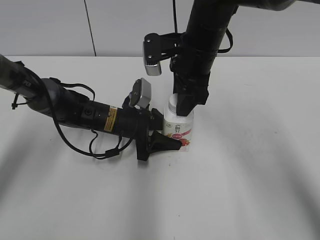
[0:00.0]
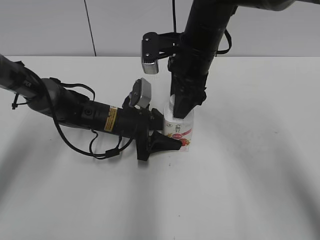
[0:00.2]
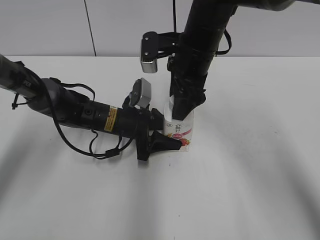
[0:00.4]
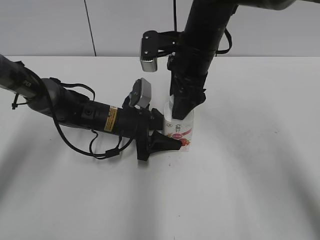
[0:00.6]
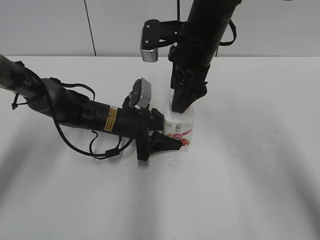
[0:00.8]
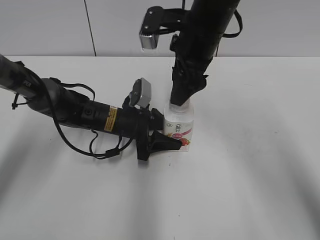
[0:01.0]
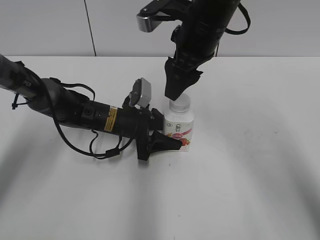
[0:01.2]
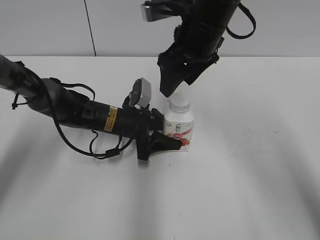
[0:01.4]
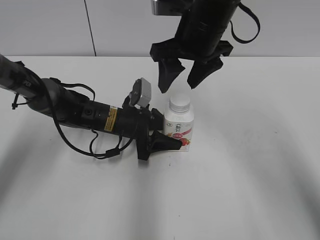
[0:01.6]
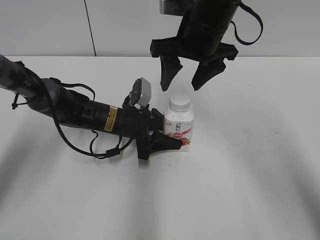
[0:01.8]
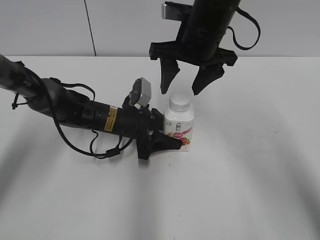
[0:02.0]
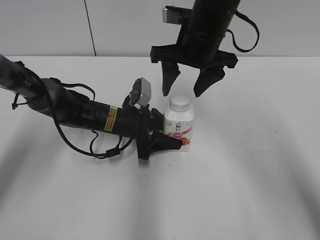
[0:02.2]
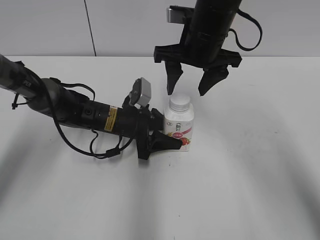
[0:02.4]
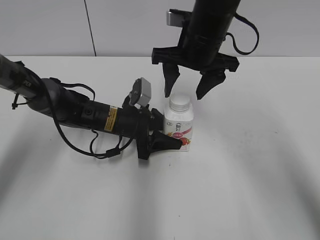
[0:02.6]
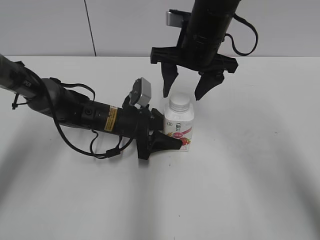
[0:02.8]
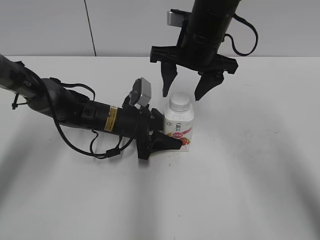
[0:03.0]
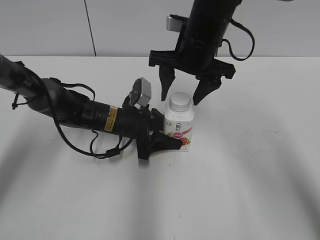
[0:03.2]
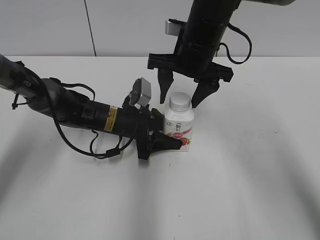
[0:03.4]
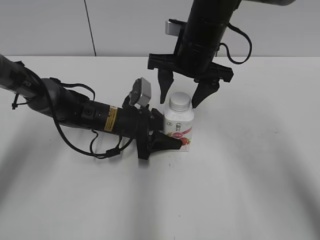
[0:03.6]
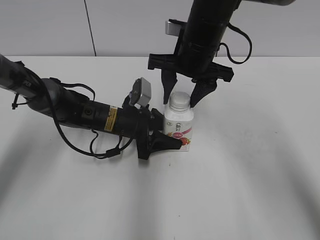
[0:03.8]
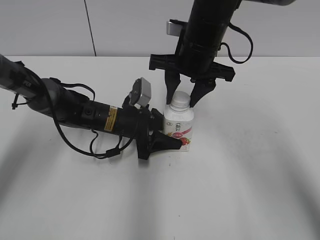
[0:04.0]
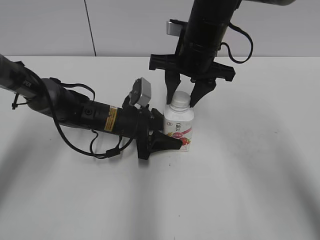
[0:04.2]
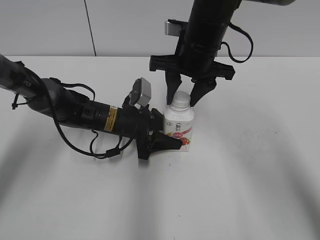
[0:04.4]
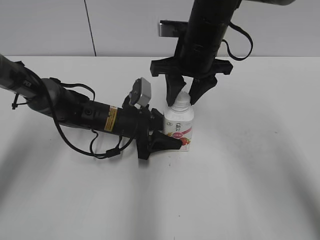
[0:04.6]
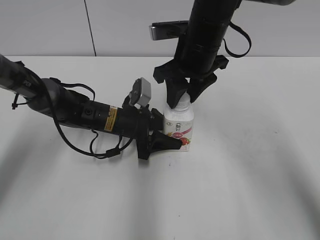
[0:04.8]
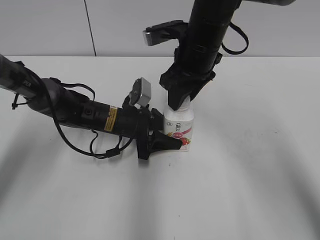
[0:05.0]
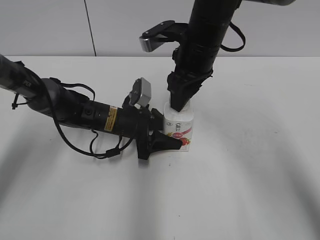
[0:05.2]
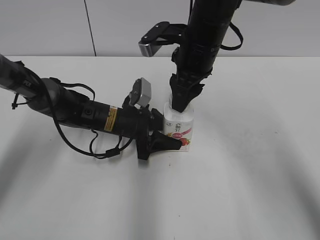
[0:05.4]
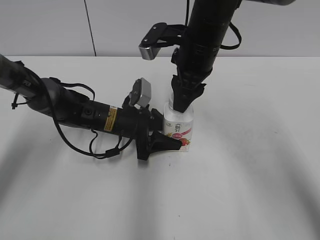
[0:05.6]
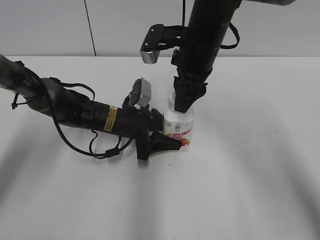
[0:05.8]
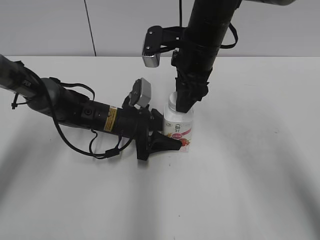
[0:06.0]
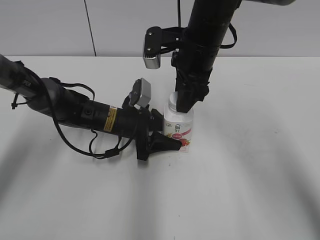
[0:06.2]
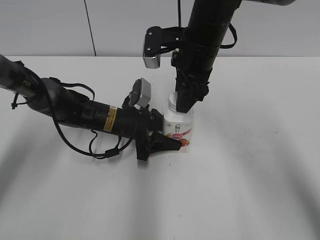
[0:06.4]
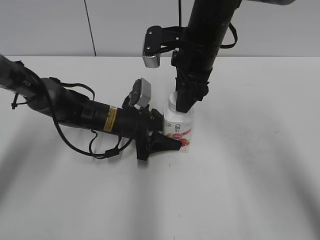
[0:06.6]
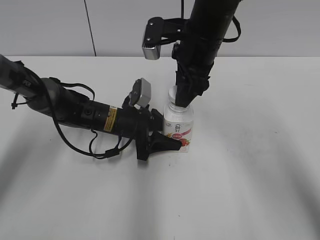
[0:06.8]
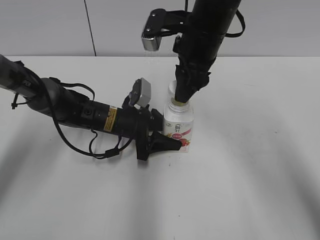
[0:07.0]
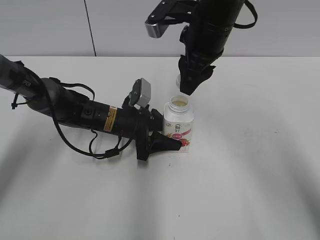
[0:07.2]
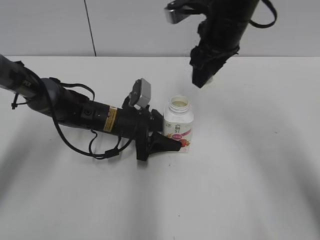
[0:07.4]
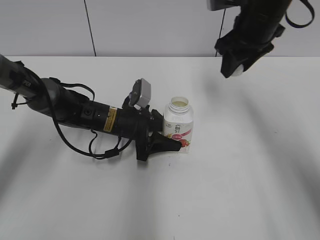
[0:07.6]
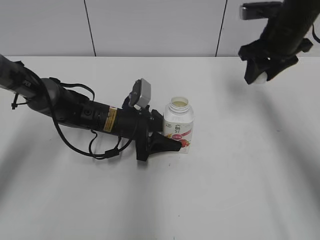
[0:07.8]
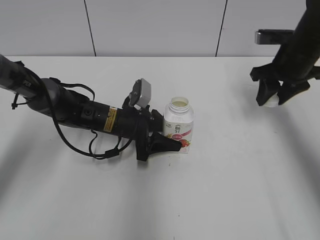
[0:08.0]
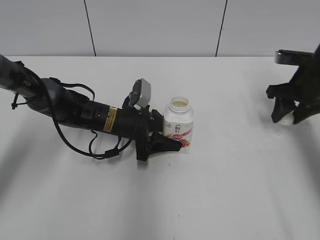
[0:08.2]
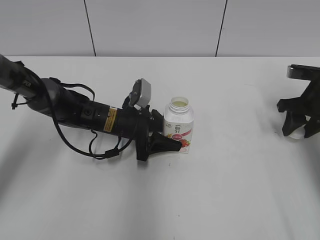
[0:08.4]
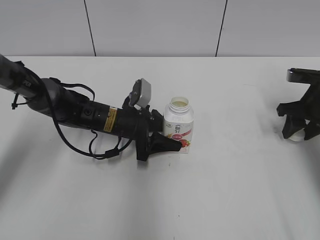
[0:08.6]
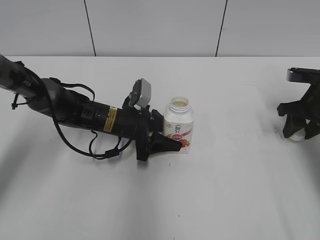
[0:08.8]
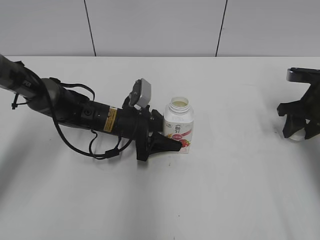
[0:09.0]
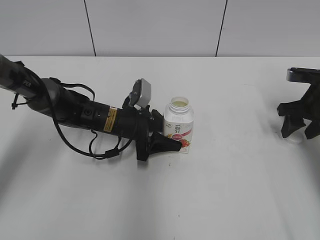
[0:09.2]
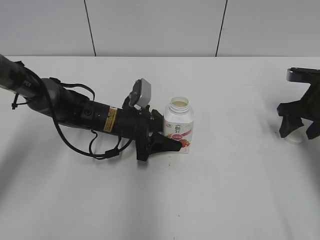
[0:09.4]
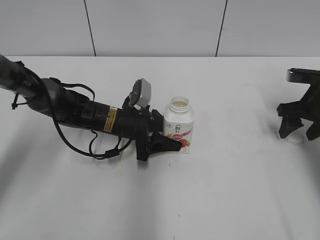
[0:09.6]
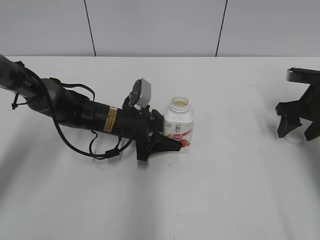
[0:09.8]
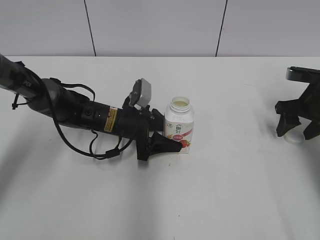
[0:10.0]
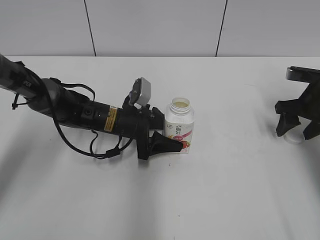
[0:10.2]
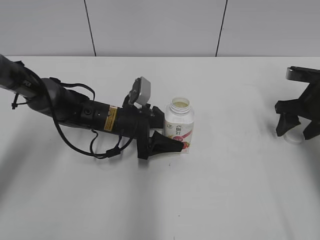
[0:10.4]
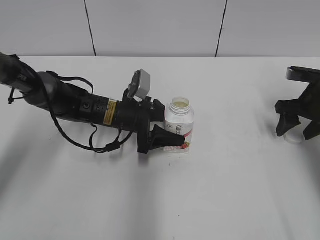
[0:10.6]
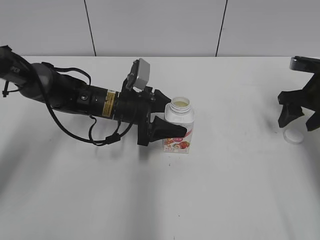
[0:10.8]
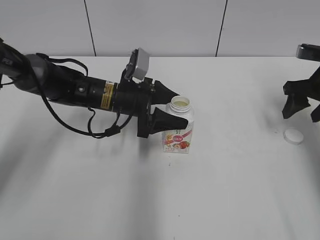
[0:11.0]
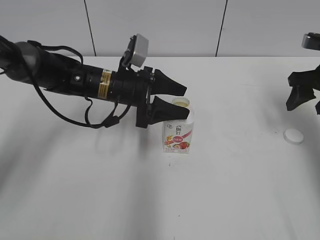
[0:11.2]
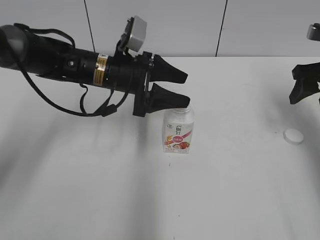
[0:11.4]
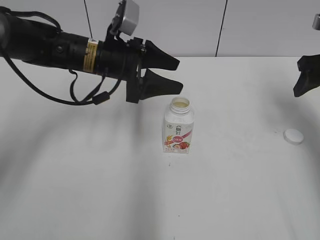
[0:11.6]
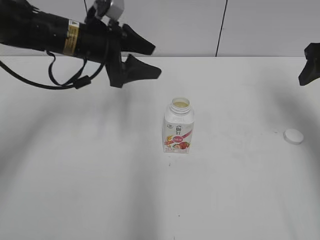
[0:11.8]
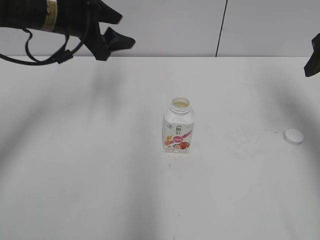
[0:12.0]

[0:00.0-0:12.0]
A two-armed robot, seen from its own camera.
Step, 7.2 to 9.4 s: Place the bottle cap on the right.
Step, 9.8 to 10.6 s: Place the Yili Changqing with the left hand.
0.0 to 1.6 s: The right gripper opens its fingers.
3.0 to 4.4 s: The right gripper closes.
6.0 to 7.6 s: The right gripper travels to the right by approximately 10 cm.
7.6 to 9.0 s: The right gripper is displaced to the right and downward by approximately 20 cm.
9.0 to 10.4 s: The left gripper opens; the right gripper opens up.
10.4 to 12.0 s: Both grippers move upward, about 20 cm.

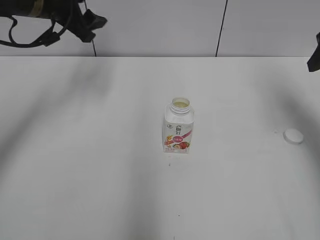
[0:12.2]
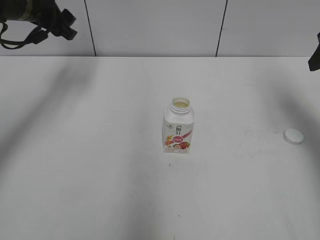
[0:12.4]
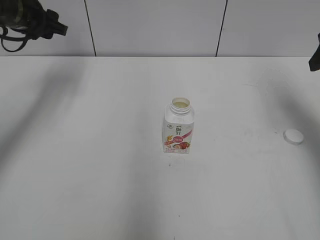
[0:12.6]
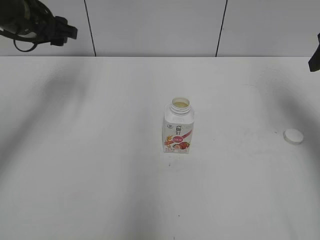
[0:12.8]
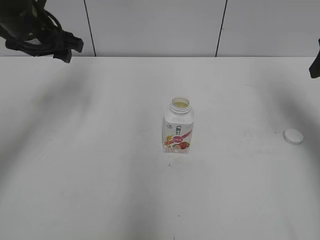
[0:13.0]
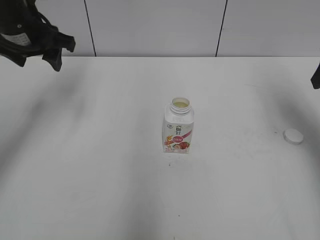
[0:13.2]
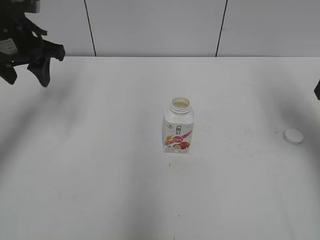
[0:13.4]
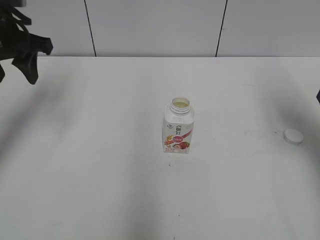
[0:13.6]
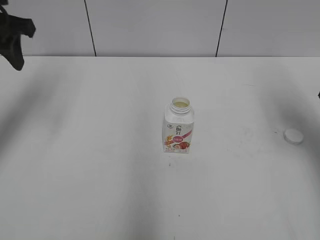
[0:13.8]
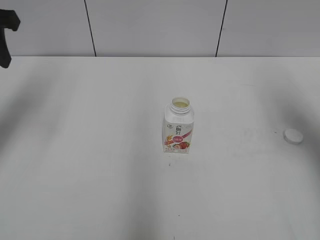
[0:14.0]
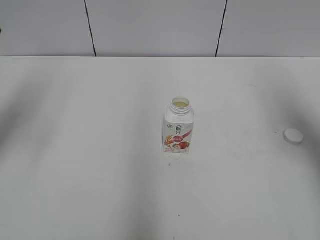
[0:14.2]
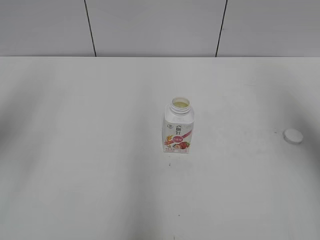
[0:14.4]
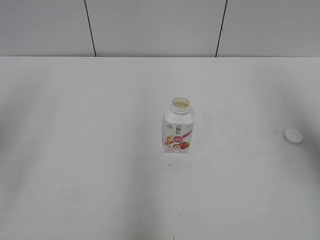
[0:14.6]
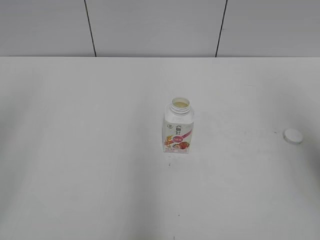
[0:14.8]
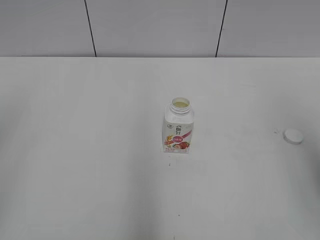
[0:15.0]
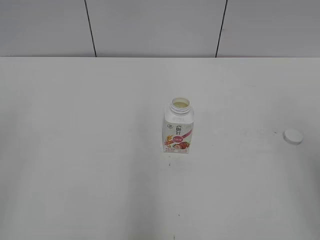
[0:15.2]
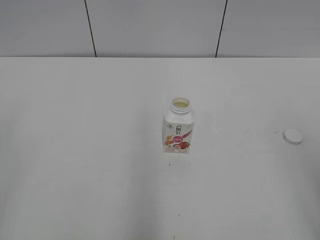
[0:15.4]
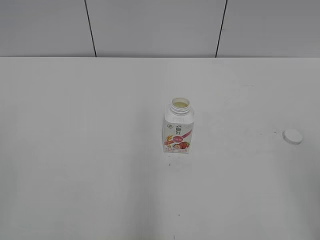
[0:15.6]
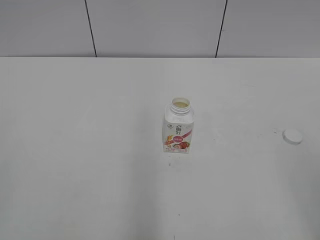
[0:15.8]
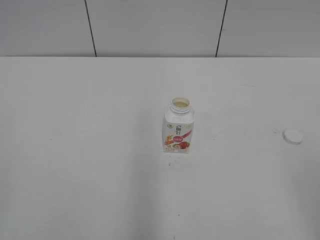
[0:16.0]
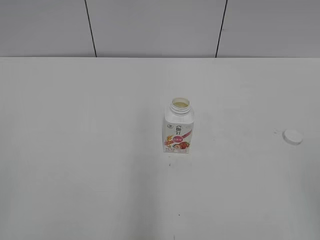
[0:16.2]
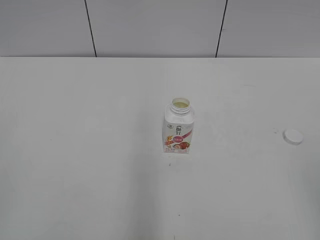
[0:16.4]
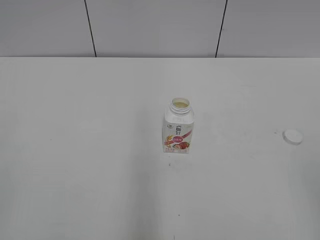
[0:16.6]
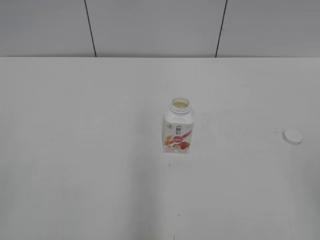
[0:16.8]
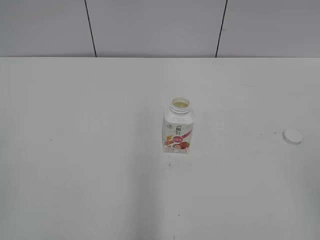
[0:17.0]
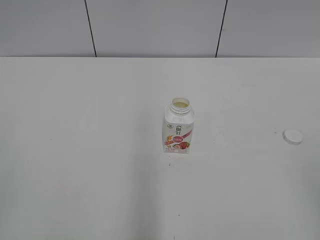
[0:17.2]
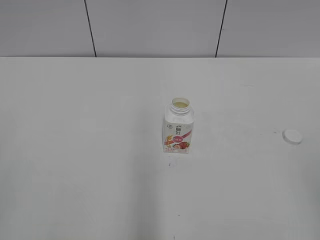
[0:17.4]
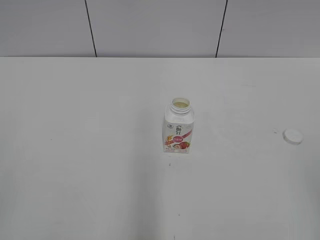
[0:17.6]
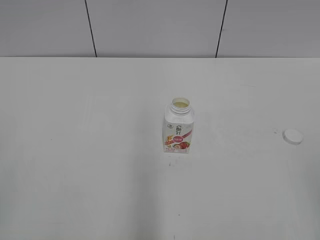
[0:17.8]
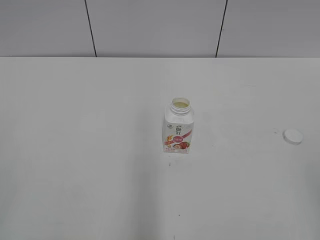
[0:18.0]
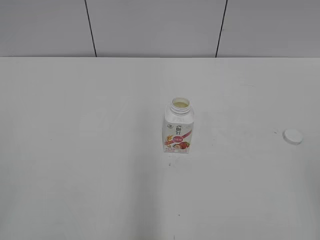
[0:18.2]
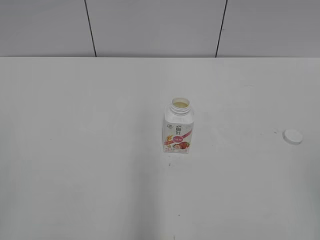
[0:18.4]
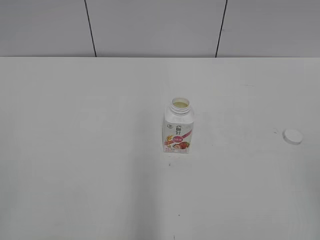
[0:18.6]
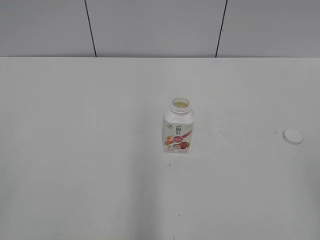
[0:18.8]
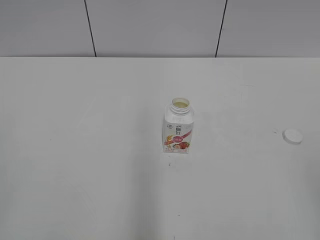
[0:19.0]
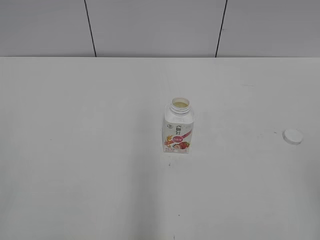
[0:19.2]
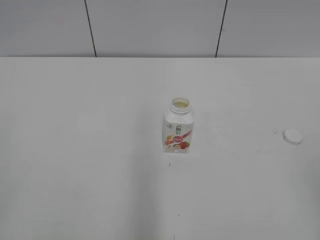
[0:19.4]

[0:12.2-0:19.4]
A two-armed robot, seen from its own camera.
12.2 to 13.6 s: The left gripper moves backward and to the left, about 10 cm.
13.6 to 15.0 s: The right gripper goes some 20 cm backward and upward. Meanwhile the left gripper moves backward, some 25 cm.
16.6 to 19.4 s: The two grippers keep their place.

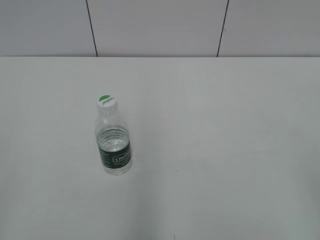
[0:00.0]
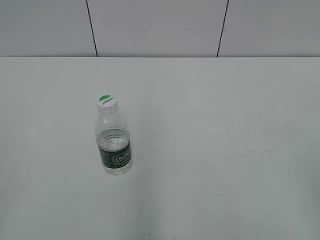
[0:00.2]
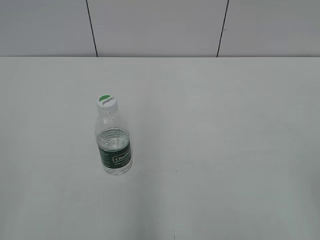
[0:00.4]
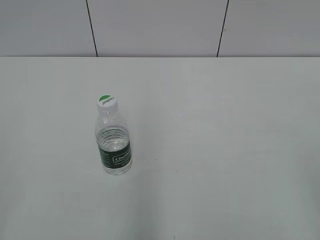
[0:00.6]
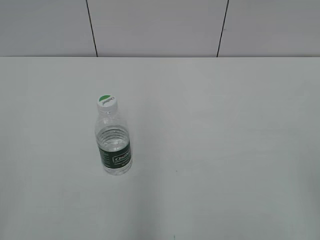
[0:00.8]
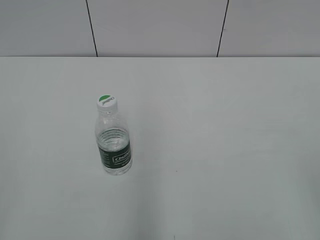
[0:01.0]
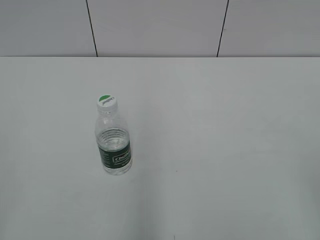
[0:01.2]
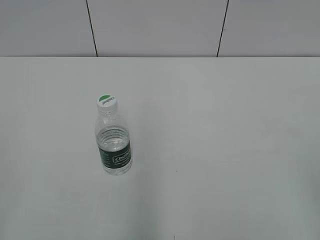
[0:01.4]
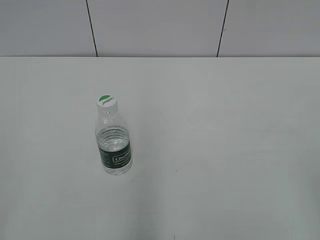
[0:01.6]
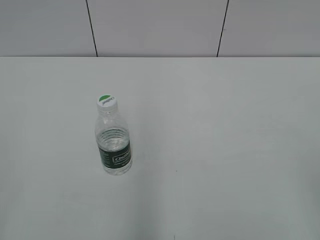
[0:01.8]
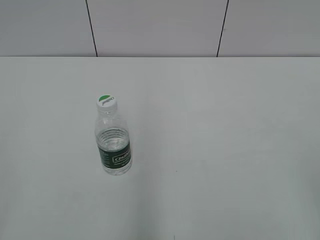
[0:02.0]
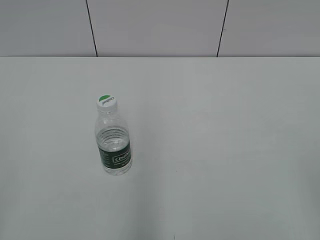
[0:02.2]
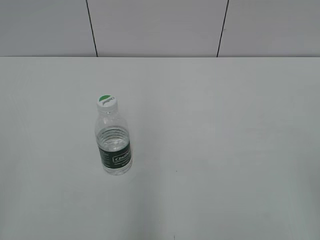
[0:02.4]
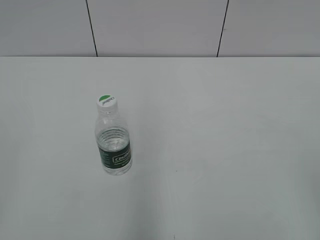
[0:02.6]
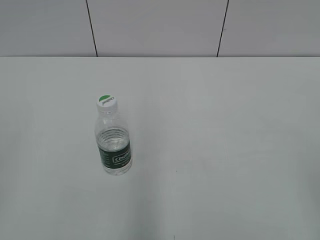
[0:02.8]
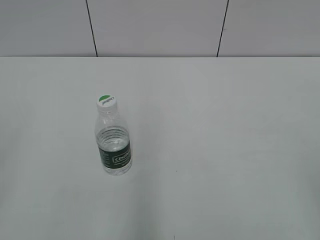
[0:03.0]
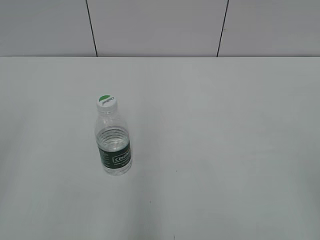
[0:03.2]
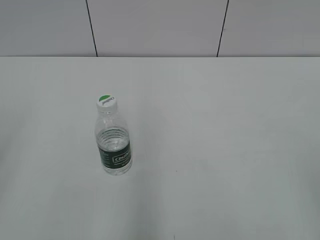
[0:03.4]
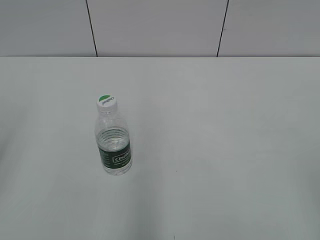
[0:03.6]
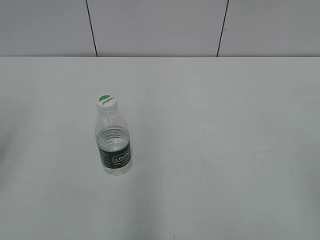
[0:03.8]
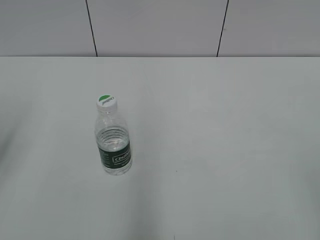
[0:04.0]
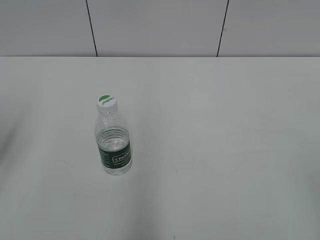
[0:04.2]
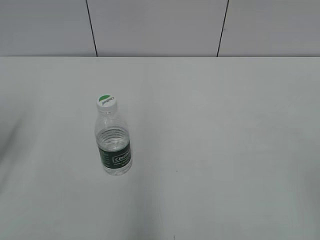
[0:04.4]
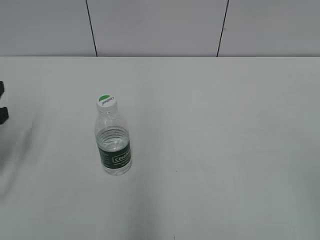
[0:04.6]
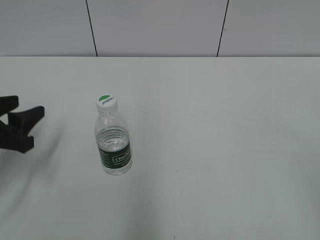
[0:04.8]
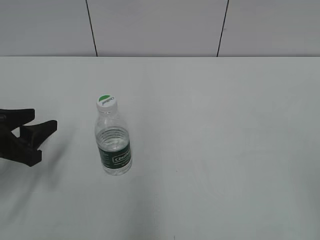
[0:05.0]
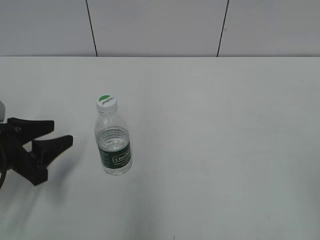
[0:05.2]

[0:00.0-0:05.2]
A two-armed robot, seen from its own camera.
3.4 to 5.2 s: The left gripper travels downward and forward by some 20 cm.
